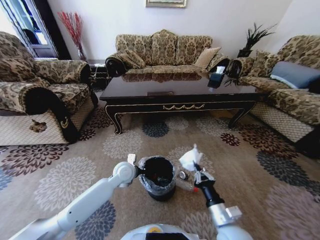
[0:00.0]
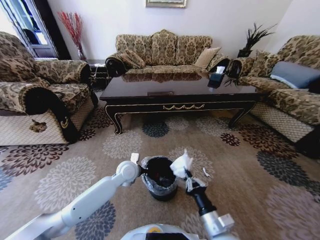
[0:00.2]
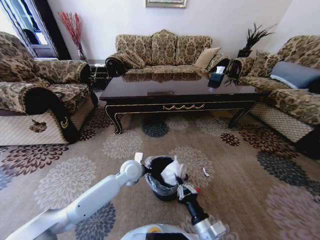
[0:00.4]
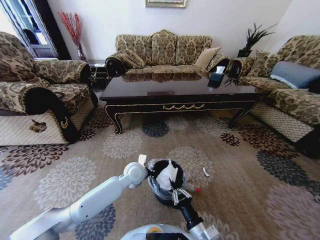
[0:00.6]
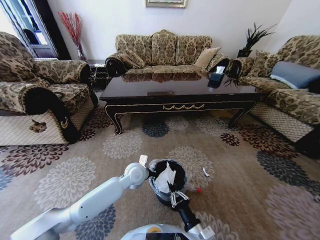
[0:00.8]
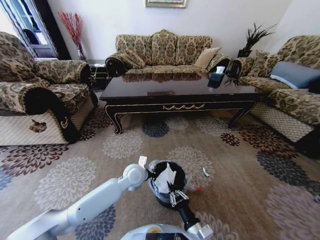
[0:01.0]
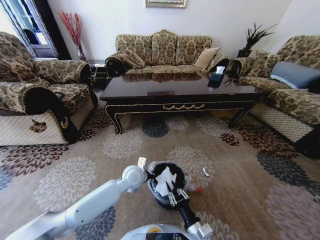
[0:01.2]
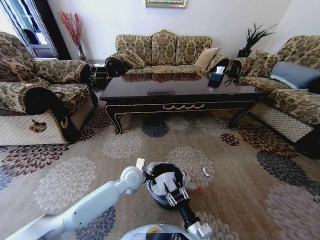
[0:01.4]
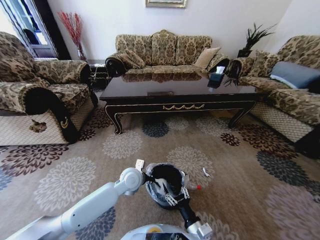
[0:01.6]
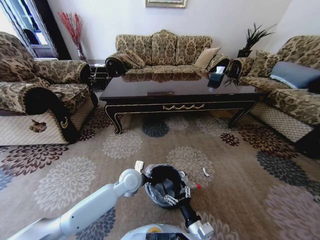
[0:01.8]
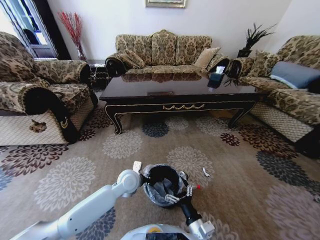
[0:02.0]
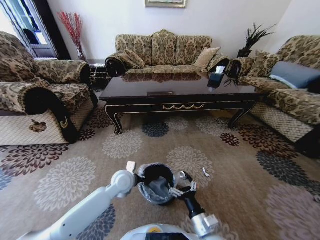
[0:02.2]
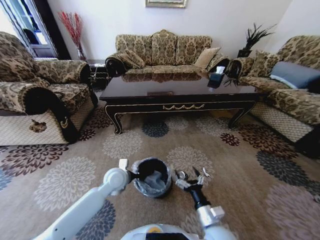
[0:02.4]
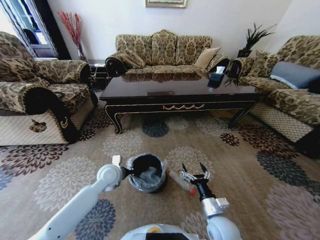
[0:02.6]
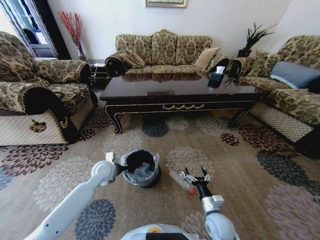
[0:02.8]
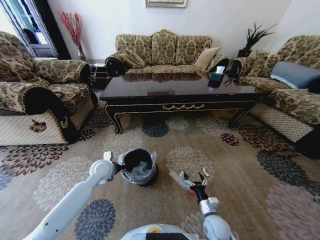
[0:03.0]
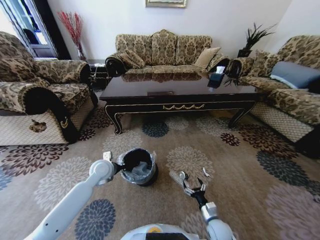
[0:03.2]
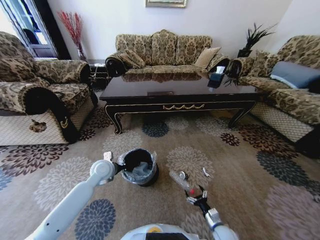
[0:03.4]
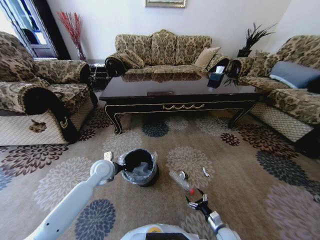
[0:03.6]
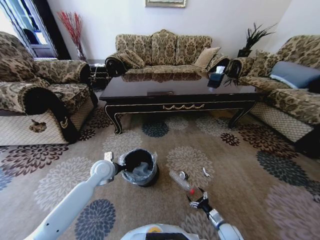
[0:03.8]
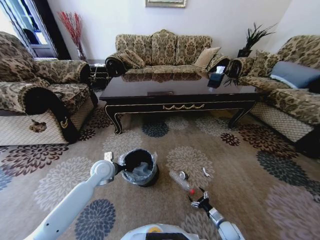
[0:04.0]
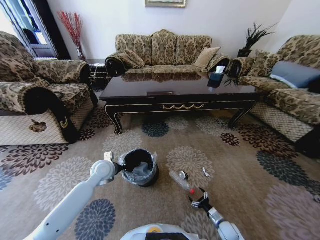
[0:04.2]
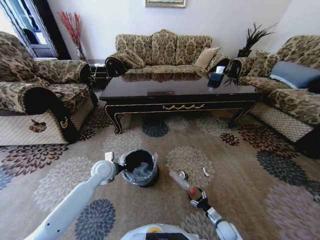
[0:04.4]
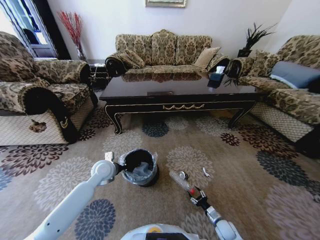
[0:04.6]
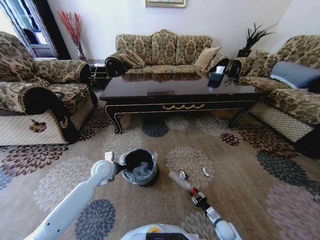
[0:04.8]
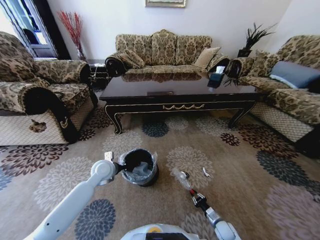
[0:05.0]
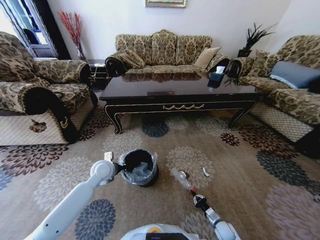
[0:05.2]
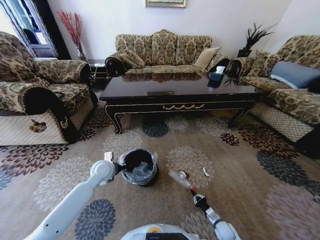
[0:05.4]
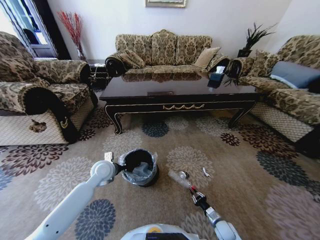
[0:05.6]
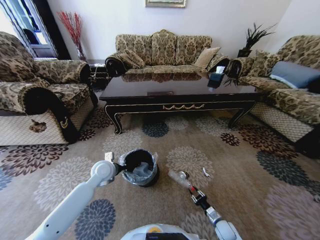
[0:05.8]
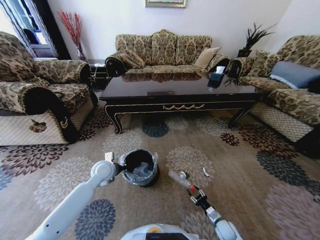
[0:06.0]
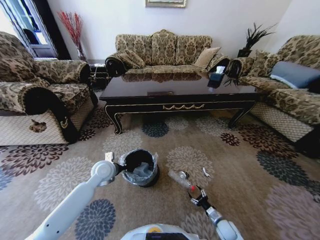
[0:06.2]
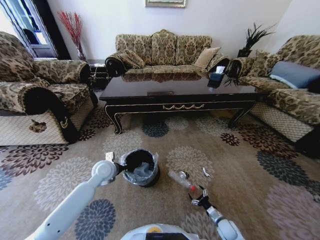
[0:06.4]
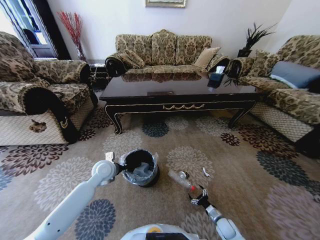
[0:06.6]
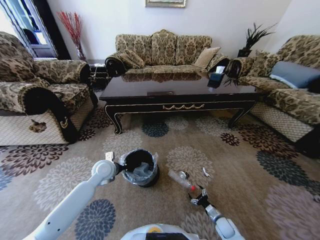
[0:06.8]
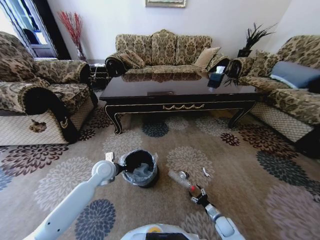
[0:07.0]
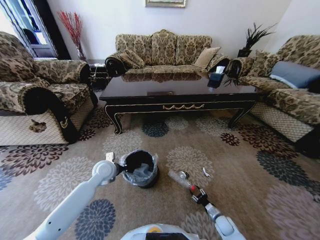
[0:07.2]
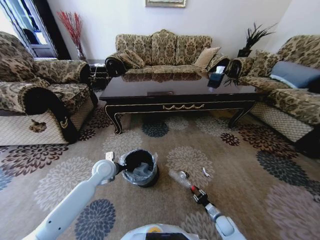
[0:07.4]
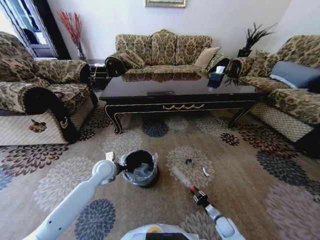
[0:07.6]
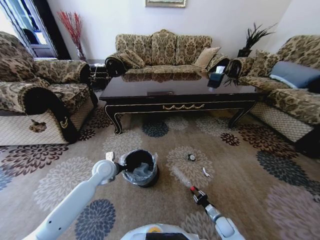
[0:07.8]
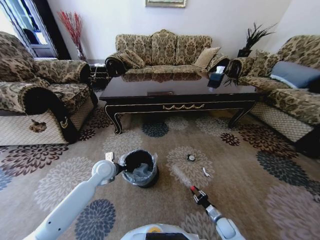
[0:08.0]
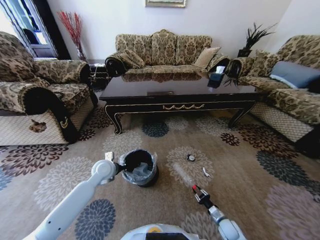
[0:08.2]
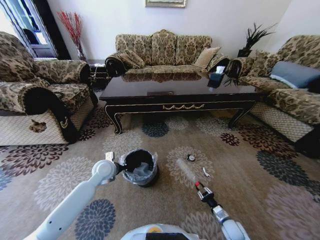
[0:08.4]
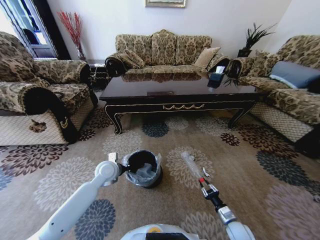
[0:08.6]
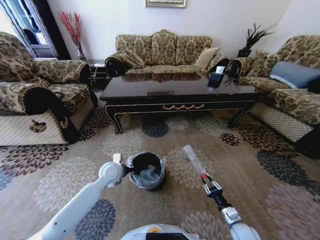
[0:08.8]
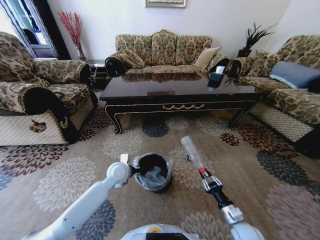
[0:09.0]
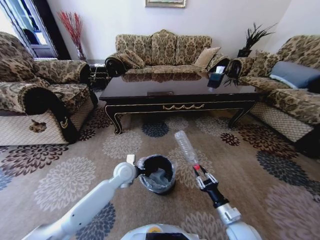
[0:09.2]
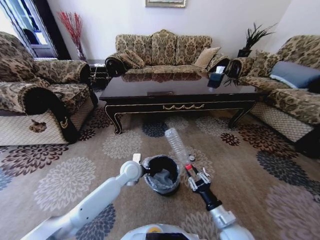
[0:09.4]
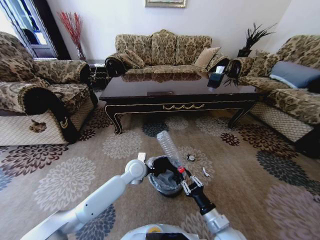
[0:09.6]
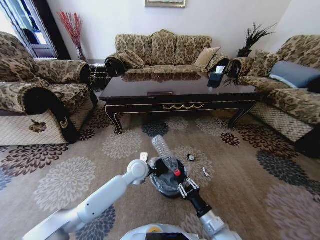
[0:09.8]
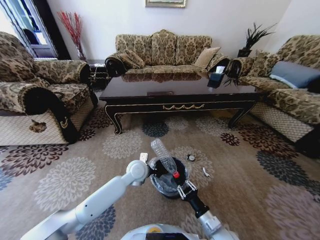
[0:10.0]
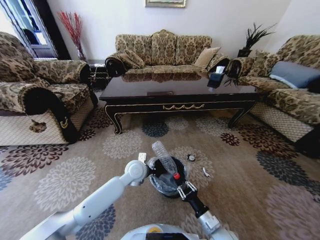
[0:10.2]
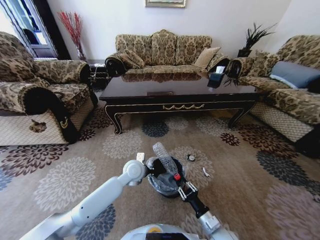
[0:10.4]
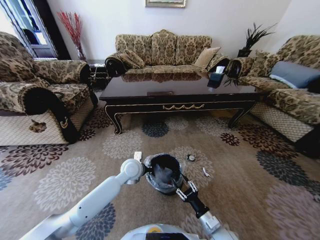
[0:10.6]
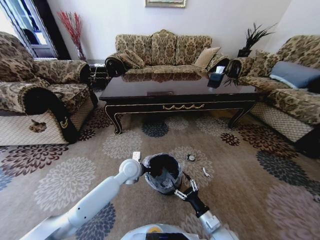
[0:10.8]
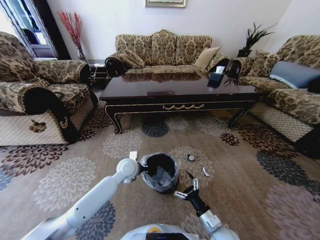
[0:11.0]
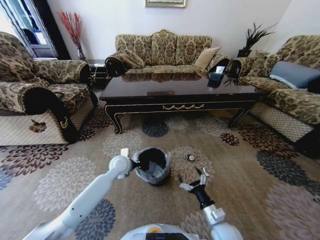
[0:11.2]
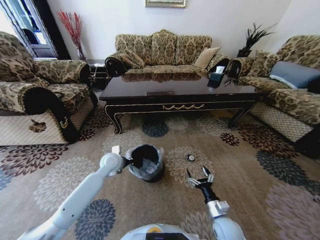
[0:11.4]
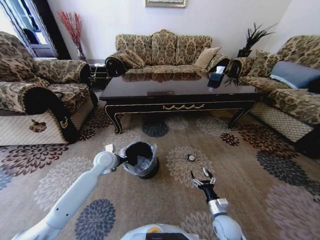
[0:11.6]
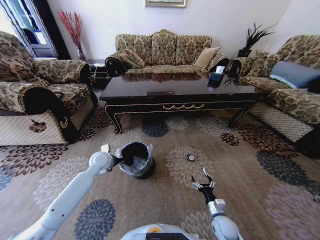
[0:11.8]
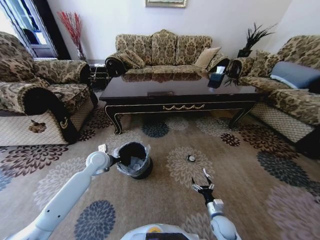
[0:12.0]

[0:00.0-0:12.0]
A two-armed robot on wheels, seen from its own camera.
Task of the whole recording: Move to the front of the table and pick up the trash from the floor, then place it into the trash bin.
0:00.0 to 0:01.6: The right gripper heads to the left, covering some 5 cm, and opens up.
0:01.6 to 0:03.0: The left gripper shifts about 15 cm to the left; the right gripper shifts approximately 15 cm forward, to the right and downward.
0:03.0 to 0:04.4: The right gripper travels downward and to the right by roughly 15 cm.
0:06.0 to 0:07.6: The right gripper opens, then closes again.
0:07.6 to 0:09.0: The left gripper heads to the right, covering about 5 cm. The right gripper shifts roughly 20 cm upward.
0:09.0 to 0:10.4: The left gripper moves to the right, approximately 5 cm. The right gripper travels to the left by approximately 10 cm.
0:10.4 to 0:12.0: The left gripper goes some 15 cm to the left. The right gripper heads downward, to the right and forward, covering about 15 cm, and opens its fingers.

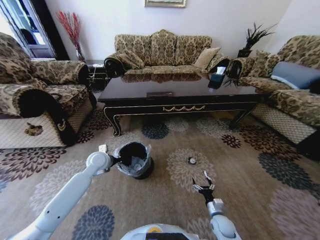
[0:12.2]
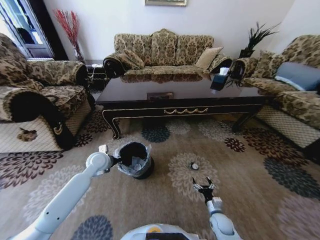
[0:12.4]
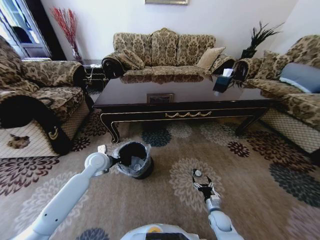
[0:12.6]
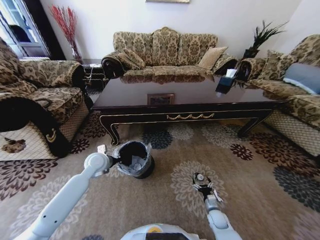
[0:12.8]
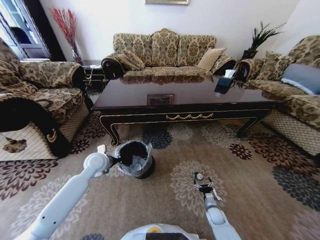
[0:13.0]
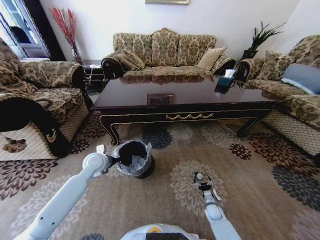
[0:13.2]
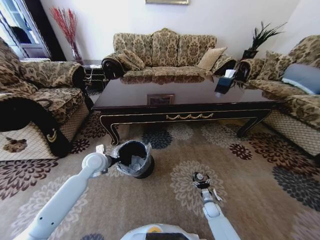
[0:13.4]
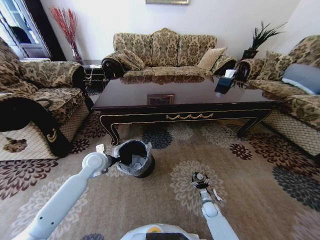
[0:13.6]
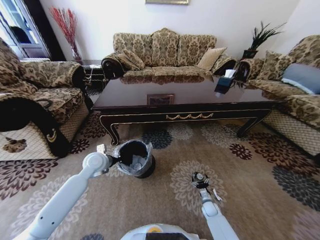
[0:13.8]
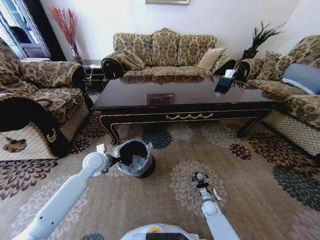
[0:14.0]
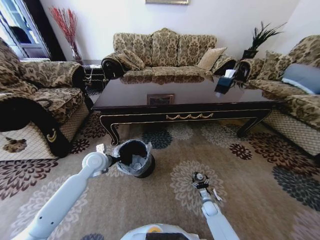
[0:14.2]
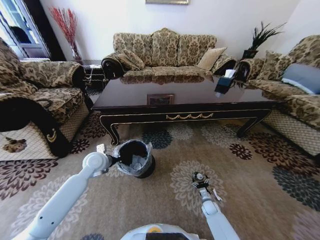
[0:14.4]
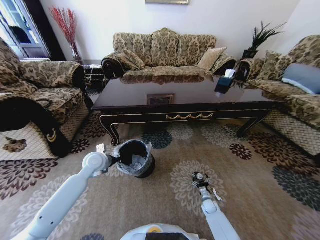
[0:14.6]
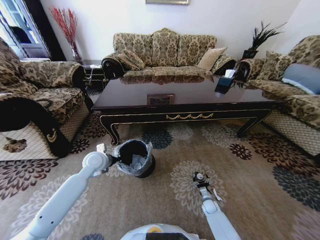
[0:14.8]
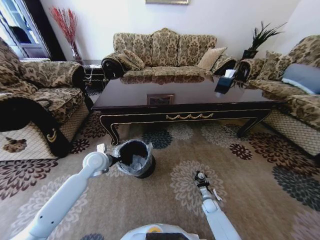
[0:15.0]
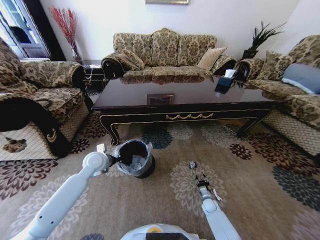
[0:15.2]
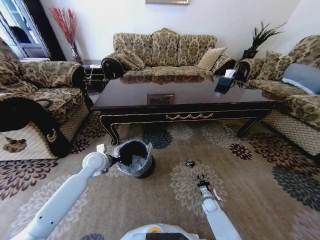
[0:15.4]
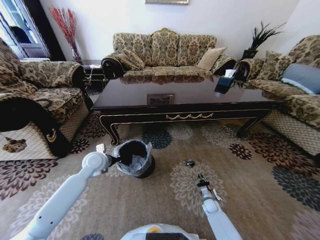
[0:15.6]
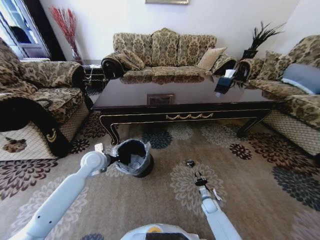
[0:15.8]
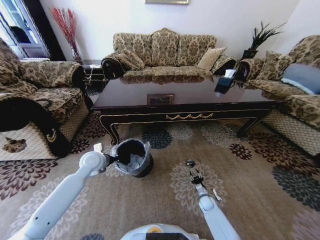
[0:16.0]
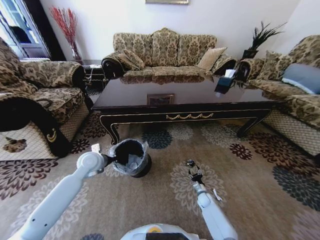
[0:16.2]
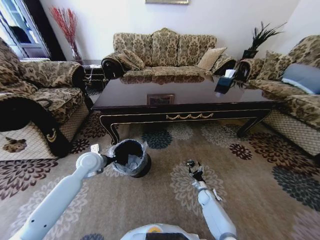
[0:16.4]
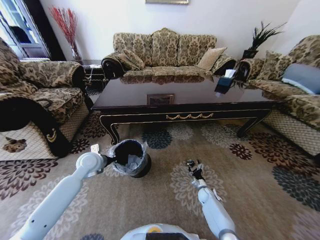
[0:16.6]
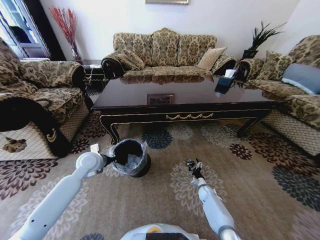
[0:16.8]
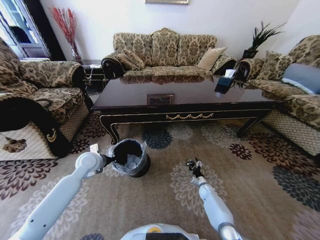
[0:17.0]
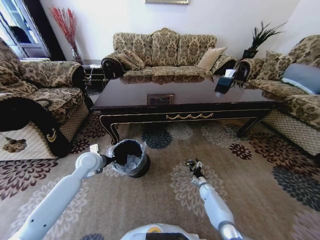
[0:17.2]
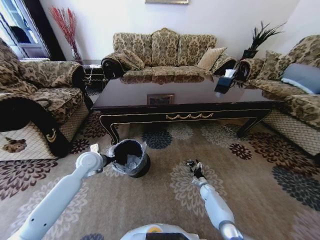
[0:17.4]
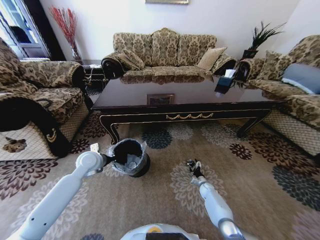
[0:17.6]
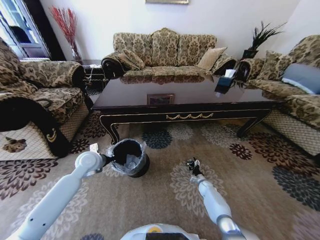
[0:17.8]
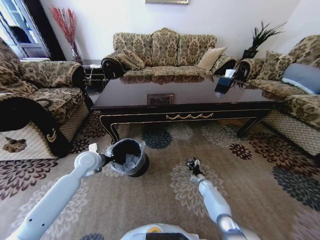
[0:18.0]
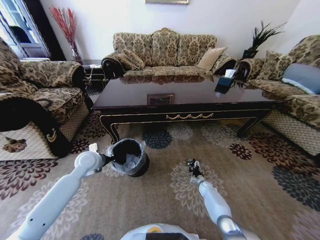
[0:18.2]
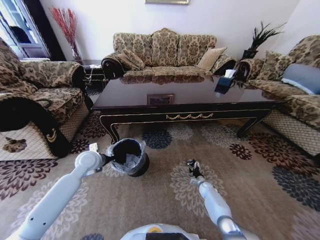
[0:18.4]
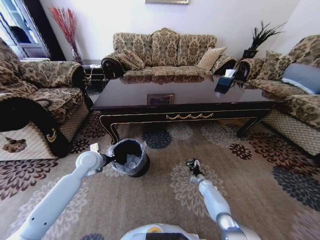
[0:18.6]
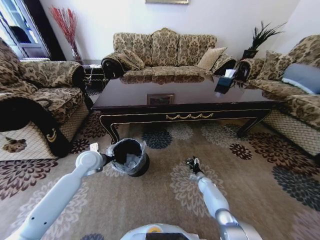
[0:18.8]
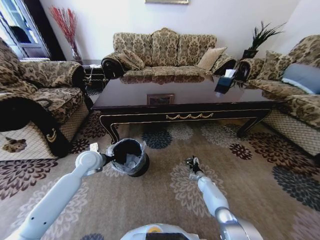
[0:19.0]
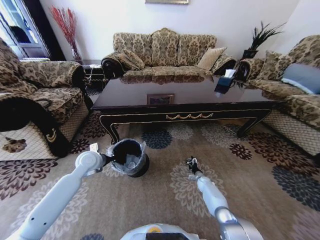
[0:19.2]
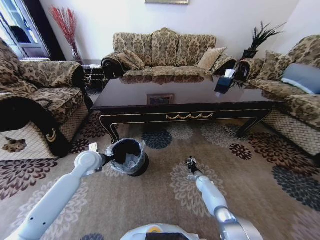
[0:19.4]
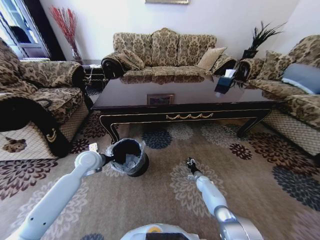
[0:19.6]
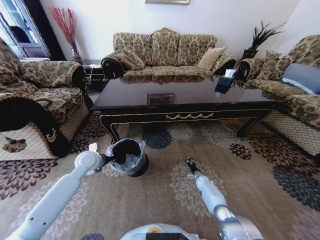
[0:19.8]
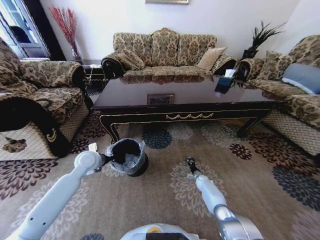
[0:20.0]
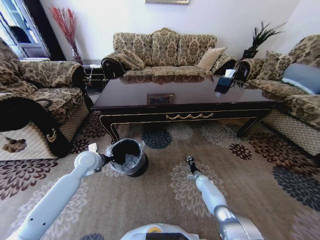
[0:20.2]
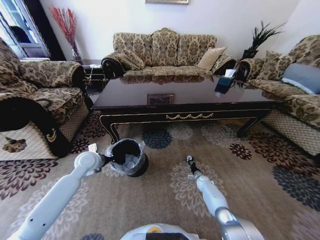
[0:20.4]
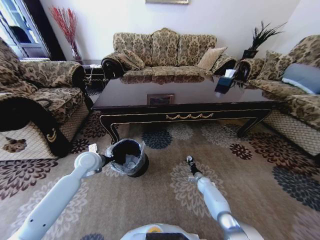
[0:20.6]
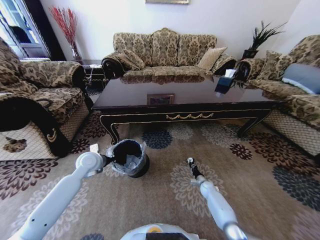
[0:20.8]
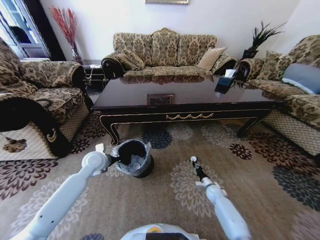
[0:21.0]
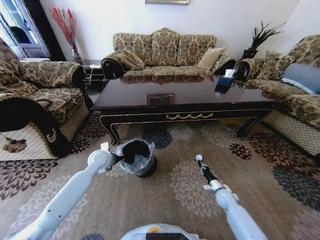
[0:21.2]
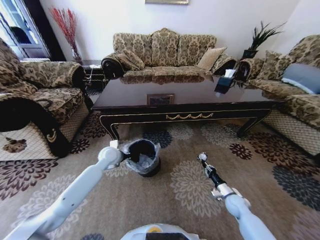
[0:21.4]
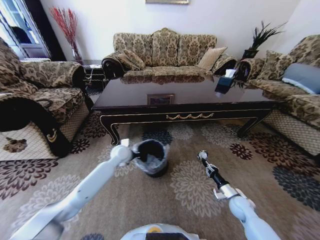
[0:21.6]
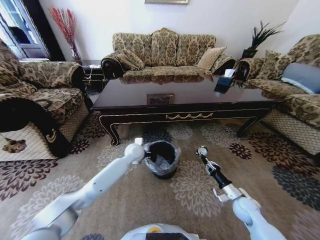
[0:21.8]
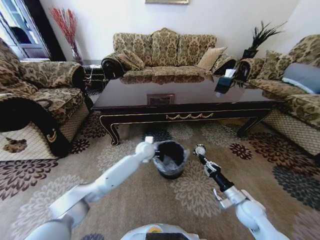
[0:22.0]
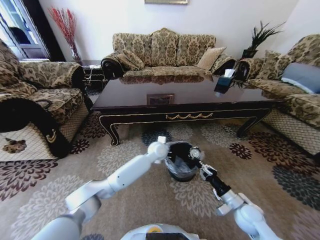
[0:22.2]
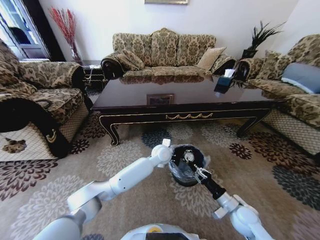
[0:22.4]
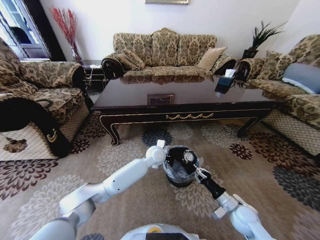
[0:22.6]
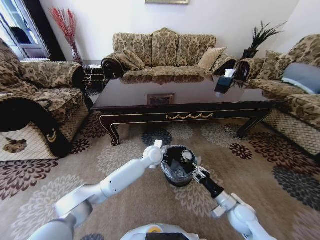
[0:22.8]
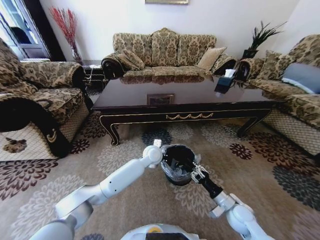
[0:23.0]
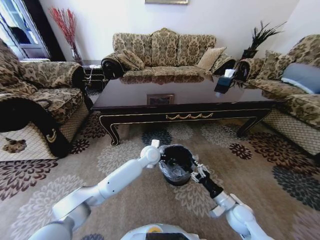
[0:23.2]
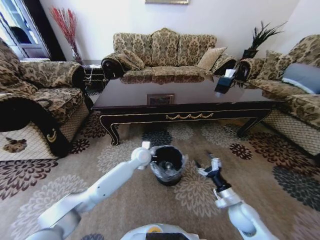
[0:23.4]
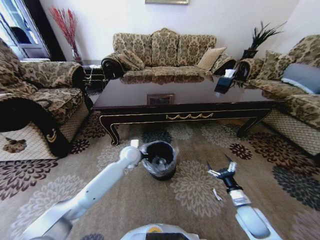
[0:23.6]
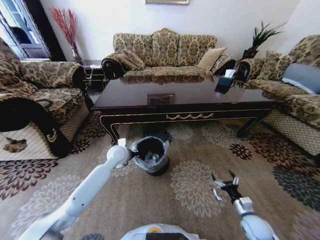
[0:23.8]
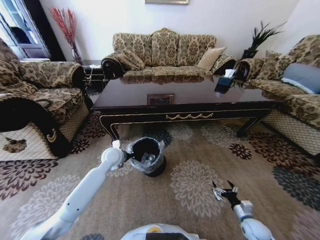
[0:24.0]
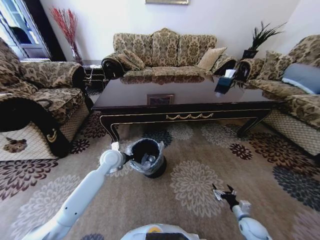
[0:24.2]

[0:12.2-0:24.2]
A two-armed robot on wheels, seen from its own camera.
Task of the whole recording: Move to the front of the table and pick up the trash from the floor, then place it into the trash bin.
0:12.2 to 0:13.8: The right gripper moves downward and forward, some 10 cm.
0:13.8 to 0:15.2: The right gripper closes up.
0:15.2 to 0:16.6: The right gripper travels forward by roughly 5 cm, and opens.
0:18.2 to 0:19.8: The right gripper closes up.
0:19.8 to 0:21.2: The right gripper moves backward, upward and to the right, some 15 cm, and closes its fingers.
0:21.2 to 0:22.6: The right gripper is displaced upward, backward and to the left by some 20 cm; the left gripper shifts about 25 cm to the right.
0:22.6 to 0:24.2: The right gripper goes approximately 20 cm downward and to the right, and opens its fingers, while the left gripper moves to the left, some 20 cm.
